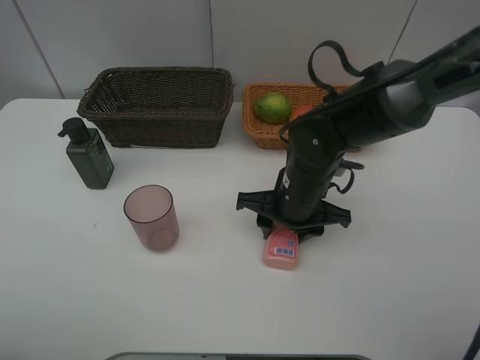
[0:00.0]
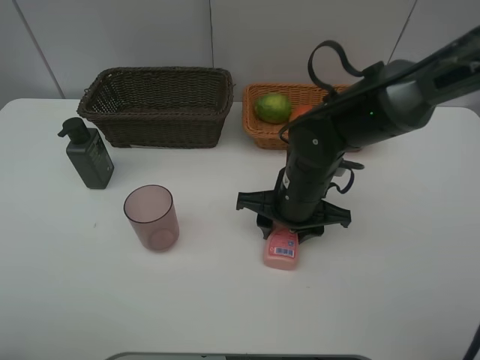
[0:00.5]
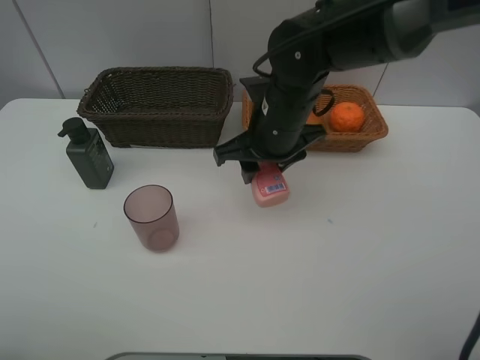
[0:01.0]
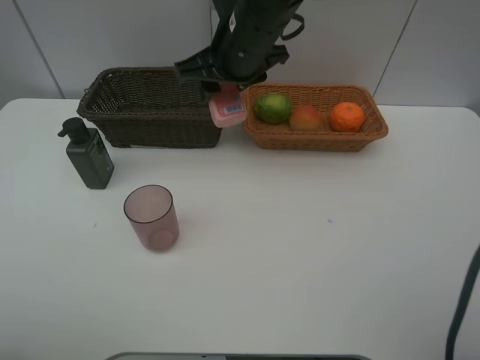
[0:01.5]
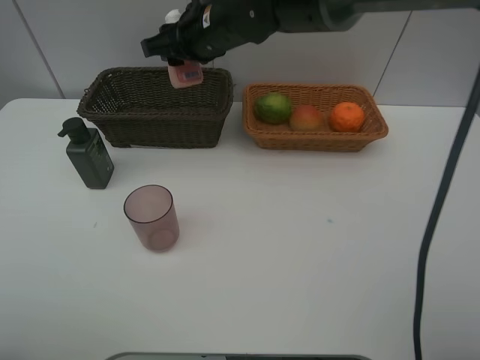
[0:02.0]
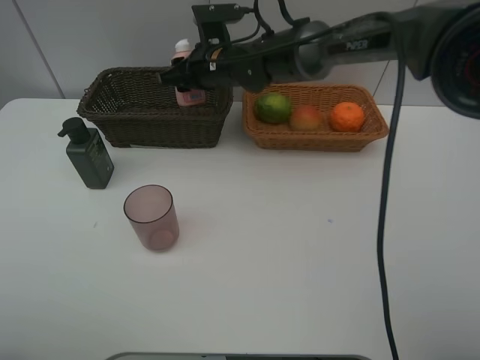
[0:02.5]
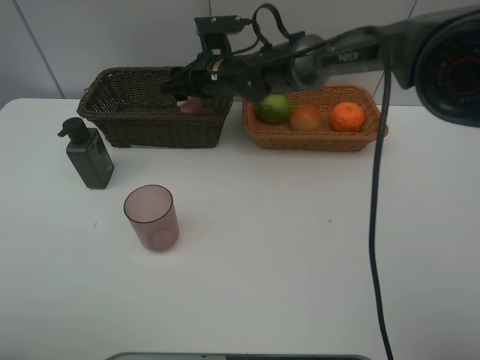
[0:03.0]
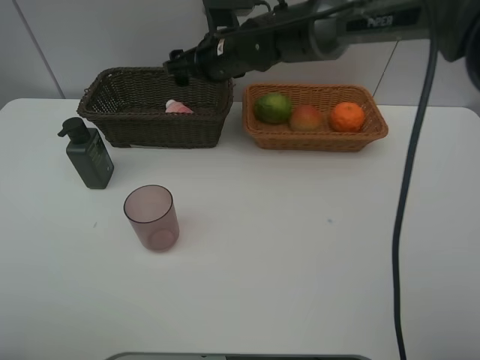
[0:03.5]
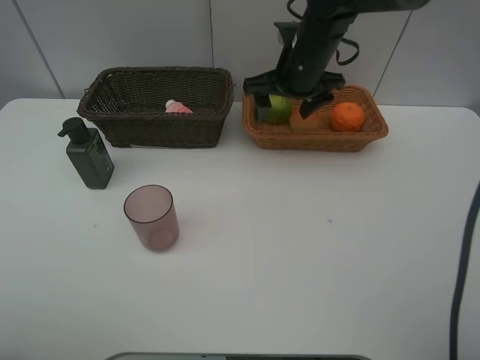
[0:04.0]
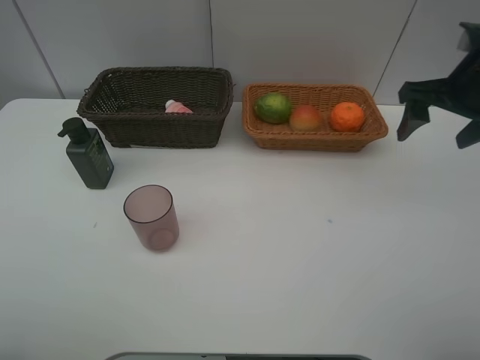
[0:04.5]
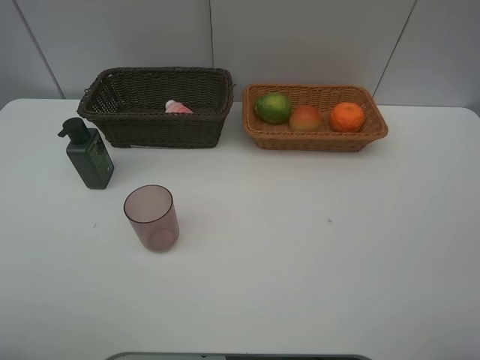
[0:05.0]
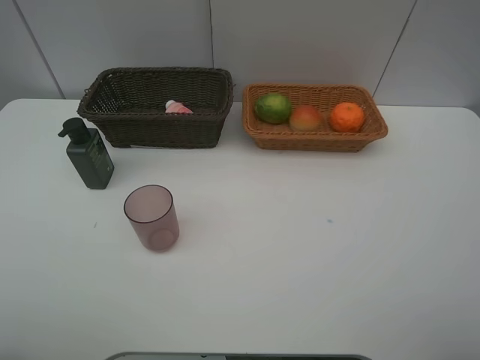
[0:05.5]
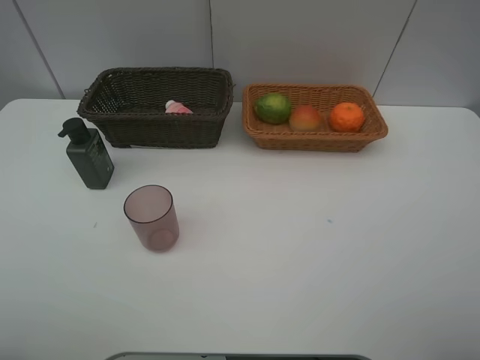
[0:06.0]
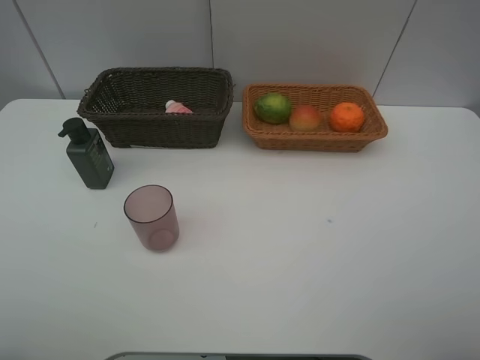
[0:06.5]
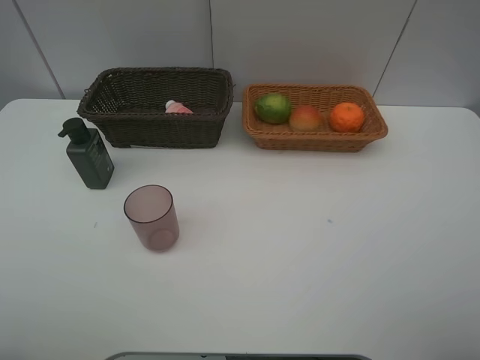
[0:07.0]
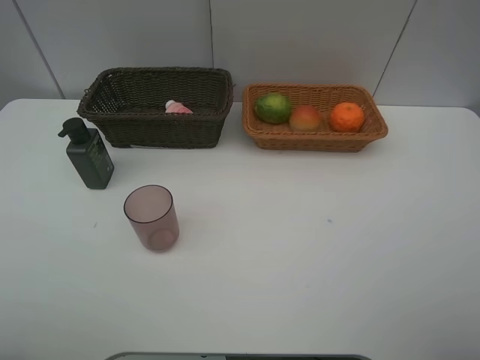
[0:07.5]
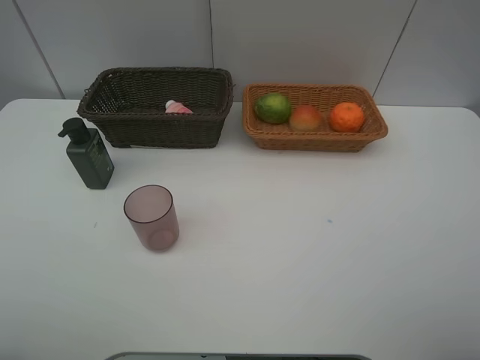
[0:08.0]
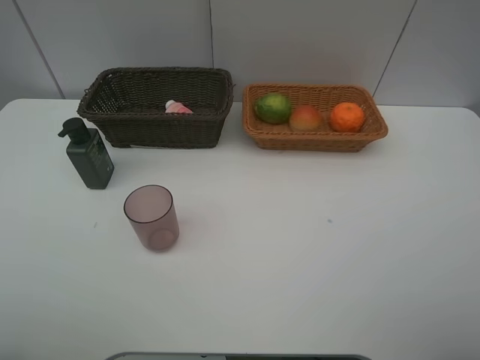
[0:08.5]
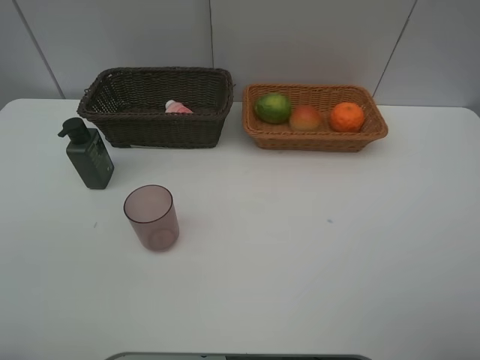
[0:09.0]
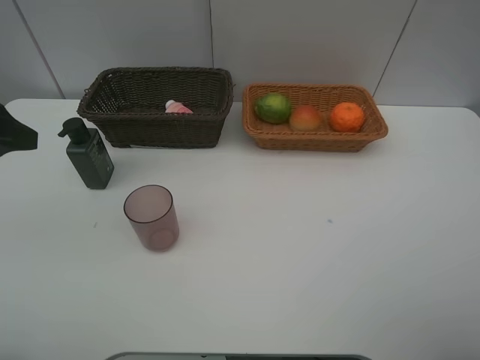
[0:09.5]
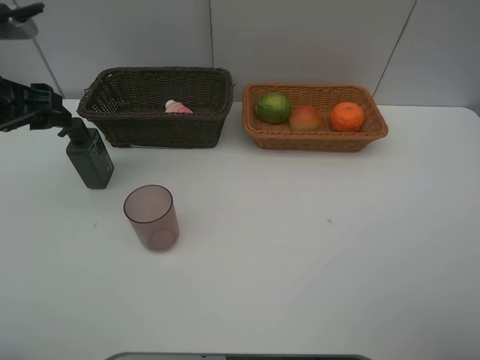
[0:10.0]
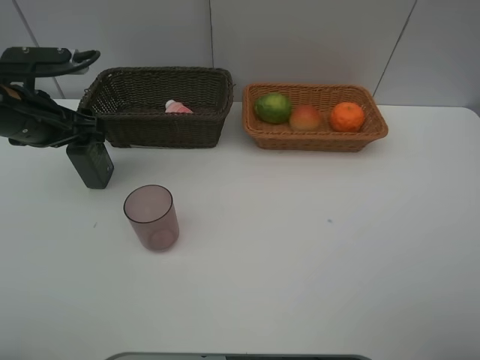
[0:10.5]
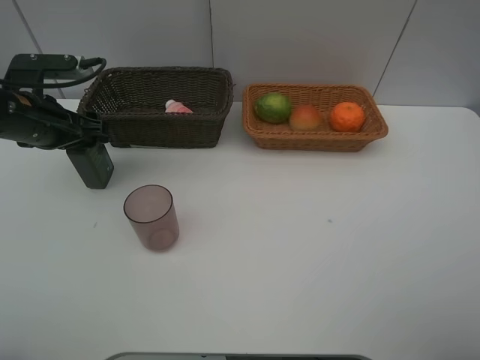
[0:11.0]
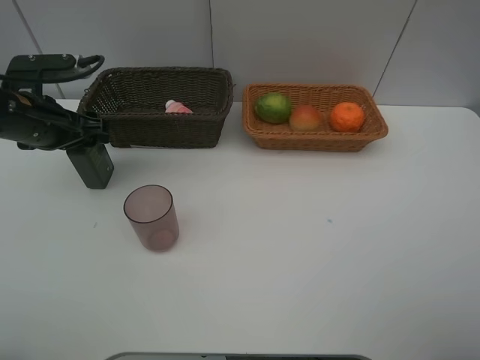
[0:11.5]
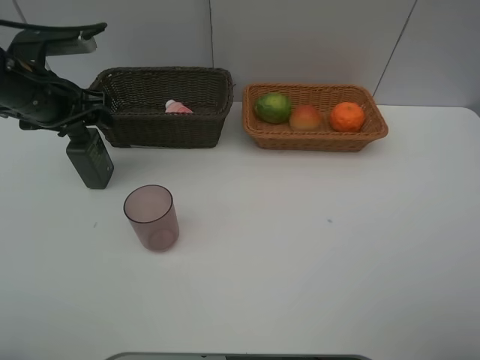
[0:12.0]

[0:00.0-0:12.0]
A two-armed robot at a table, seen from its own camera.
Task of the whole recording: place multiple objects separately in different baskets.
Step, 0:01.0 to 0:03.5: Place the laundry detergent in the dark basket with right gripper.
0:00.0 to 0:02.0: The right gripper shifts roughly 25 cm forward, upward and to the left.
0:02.0 to 0:04.0: The right gripper moves to the right, about 15 cm, and opens up.
0:04.0 to 0:06.0: The right gripper shifts approximately 40 cm backward and to the right.
0:06.0 to 0:08.0: Both grippers stay put.
0:08.0 to 0:10.0: The left gripper shifts roughly 25 cm forward.
0:10.0 to 0:12.0: The left gripper shifts some 5 cm forward.

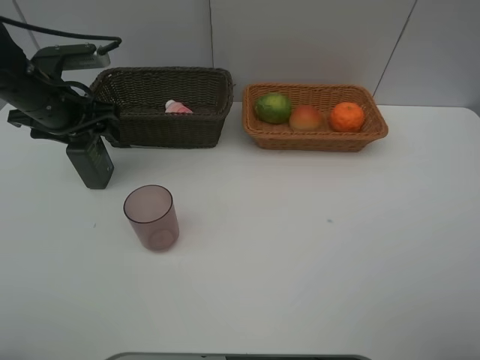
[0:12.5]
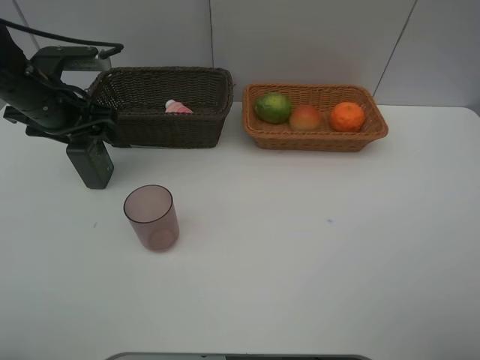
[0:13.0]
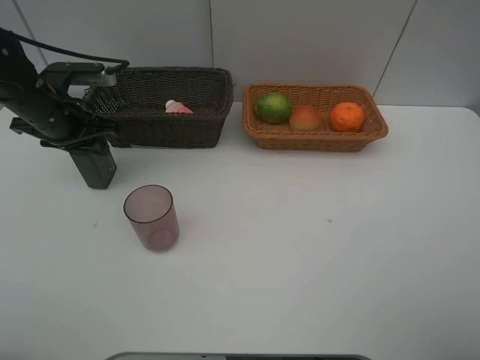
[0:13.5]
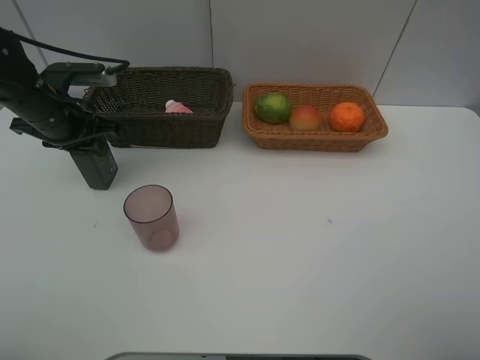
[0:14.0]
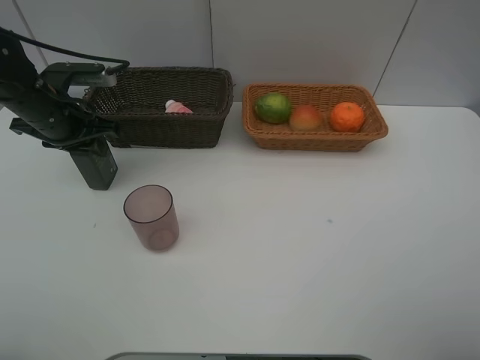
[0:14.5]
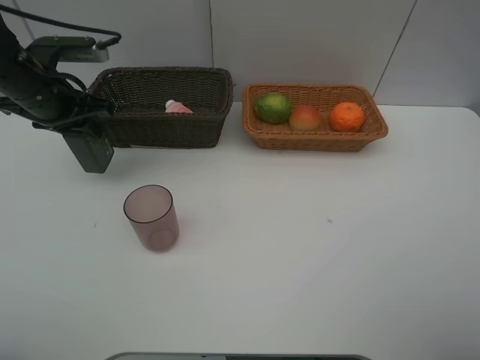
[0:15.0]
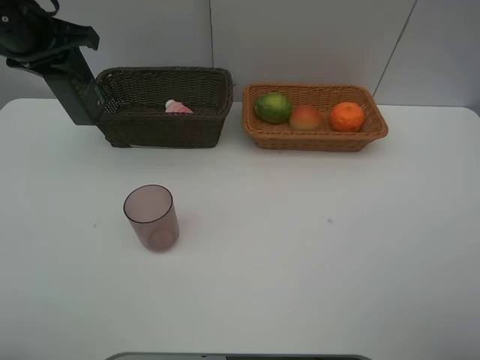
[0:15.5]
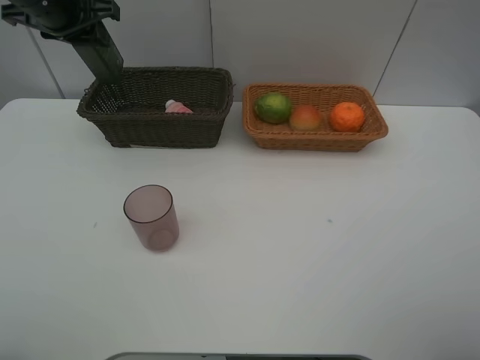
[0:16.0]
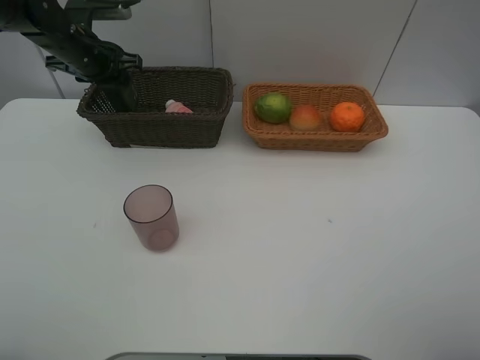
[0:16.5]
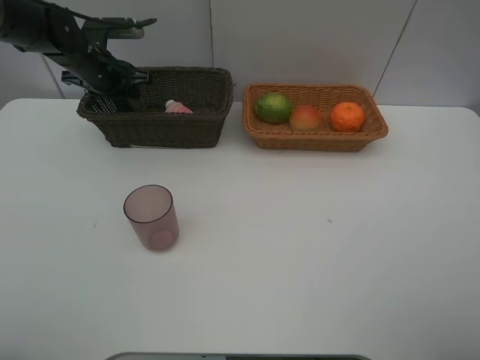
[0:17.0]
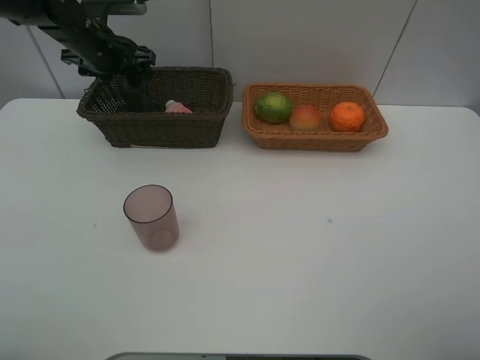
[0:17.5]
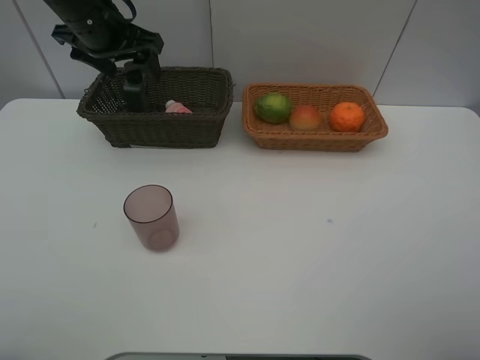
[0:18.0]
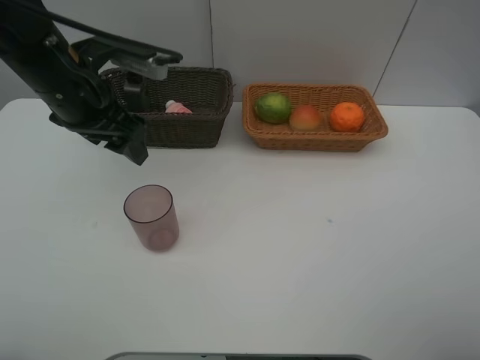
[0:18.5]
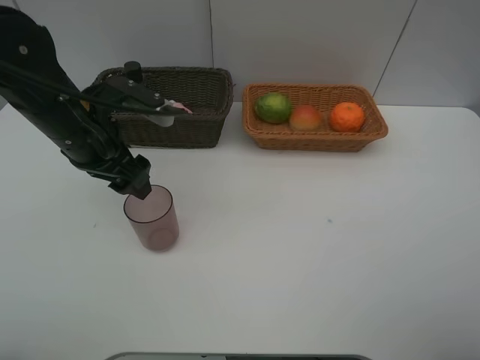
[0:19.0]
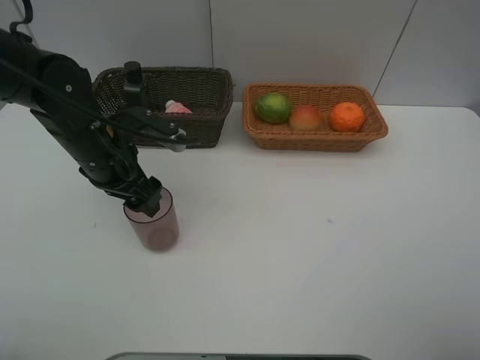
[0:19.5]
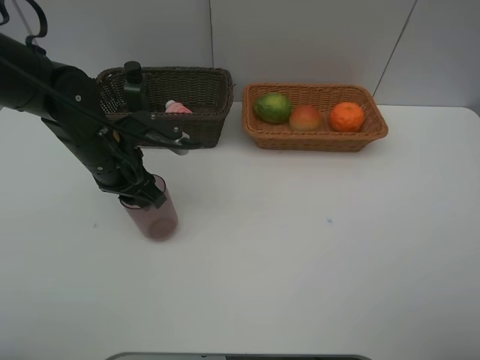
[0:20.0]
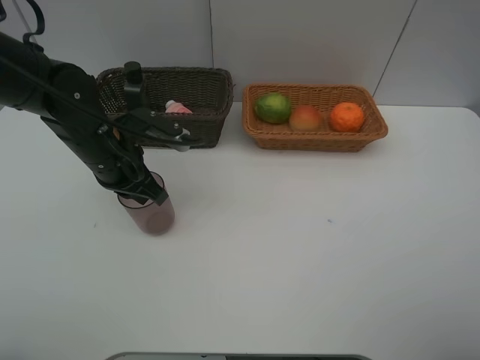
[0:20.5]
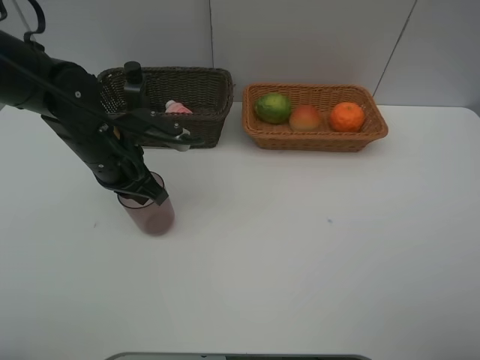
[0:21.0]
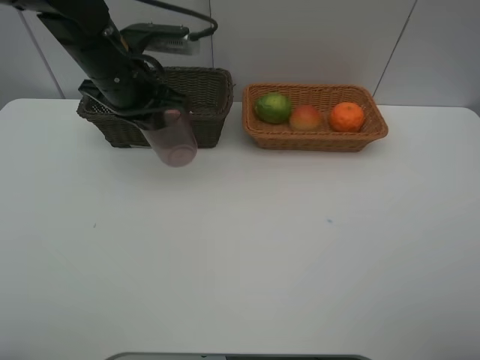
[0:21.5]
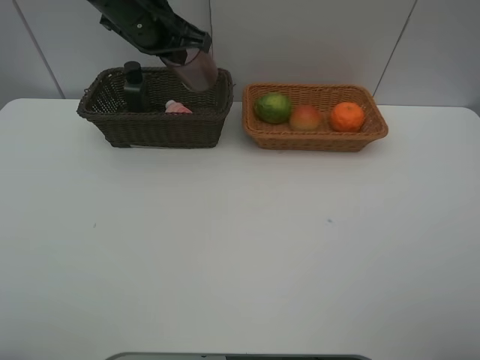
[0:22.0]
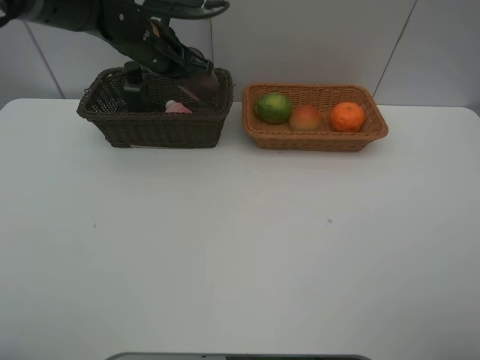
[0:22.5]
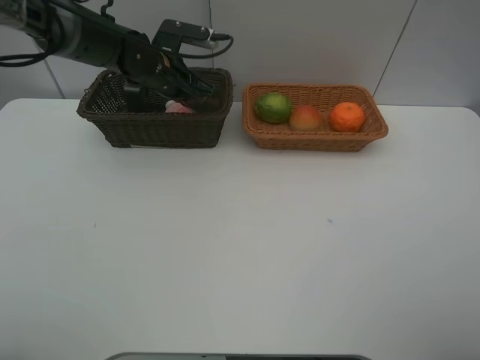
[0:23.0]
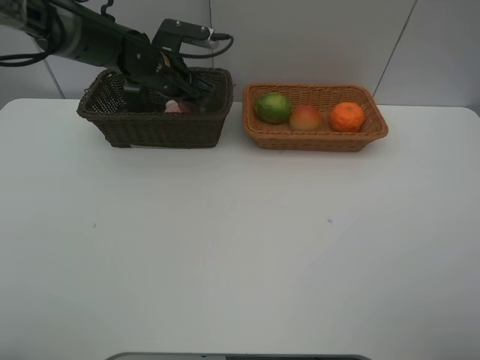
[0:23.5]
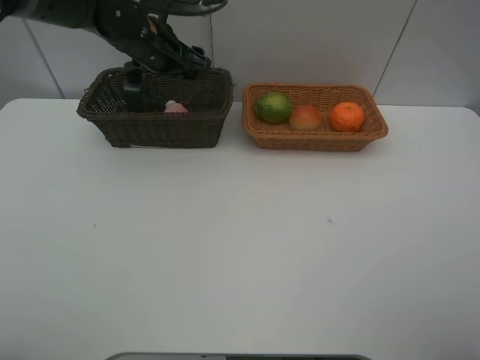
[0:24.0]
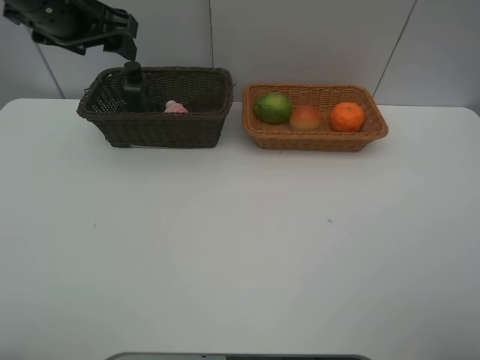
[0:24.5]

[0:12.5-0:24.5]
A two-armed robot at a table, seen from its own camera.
Task of the whole recording: place multiple objects separately in different baskets.
Step, 0:12.5 to 0:14.5: Pick up the brown cup with left gripper.
Step, 0:15.0 to 0:17.5: Place the facial cleanser in the dark basket with left gripper.
Step, 0:18.0 to 0:21.0: Pick up the brown cup with left gripper.
Step, 0:21.5 to 0:24.0: Place the brown cup in the dark basket with left gripper.
0:12.5 to 0:14.5: The left gripper closes its fingers.
0:14.5 to 0:16.5: The left gripper travels forward by about 10 cm, and travels upward and back again, roughly 15 cm each way.
0:16.5 to 0:18.5: The left gripper moves backward and to the right, some 20 cm, and opens its fingers.
0:18.5 to 0:20.5: The left gripper moves downward, about 10 cm, and closes up.
0:20.5 to 0:22.5: The left gripper travels forward and upward by about 15 cm.
0:22.5 to 0:24.5: The left gripper moves upward, to the left and backward, about 15 cm, and opens.

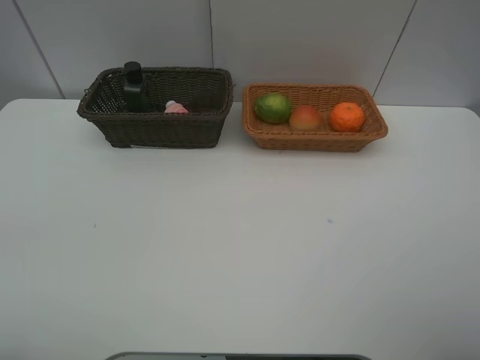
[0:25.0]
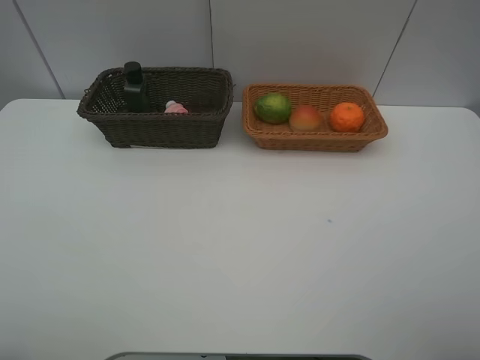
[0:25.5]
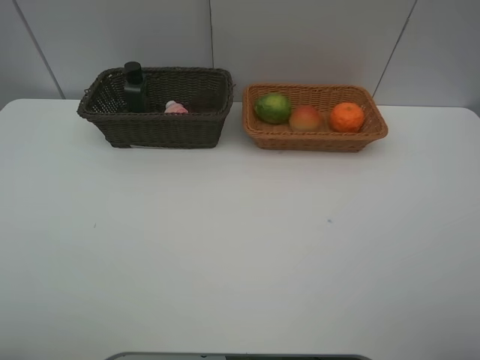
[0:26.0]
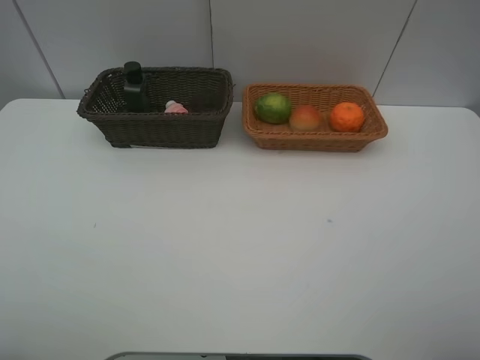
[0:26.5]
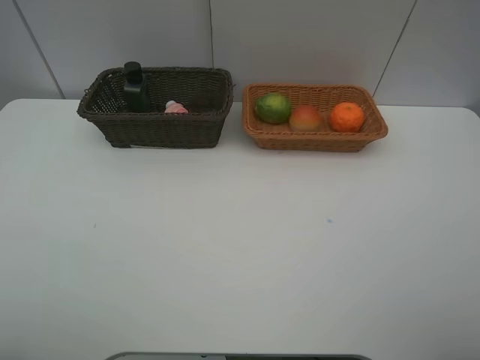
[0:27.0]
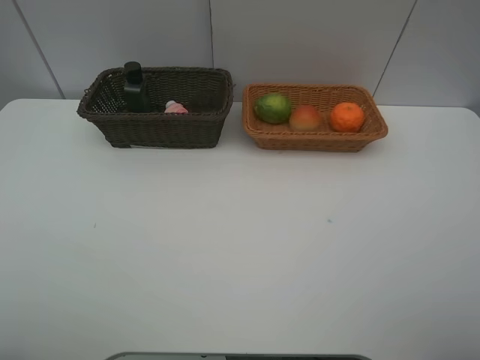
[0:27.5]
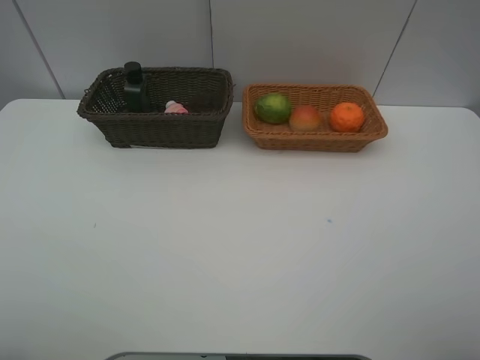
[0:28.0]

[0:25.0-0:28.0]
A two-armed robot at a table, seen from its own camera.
Task of the whole recording: place multiple objects separately in different baskets.
0:26.5 to 0:28.0: Both grippers stay put.
